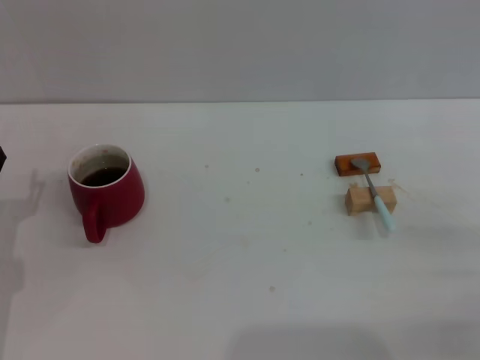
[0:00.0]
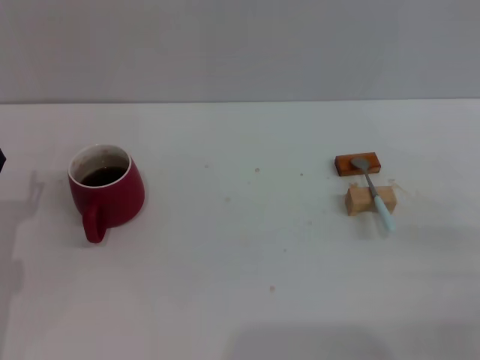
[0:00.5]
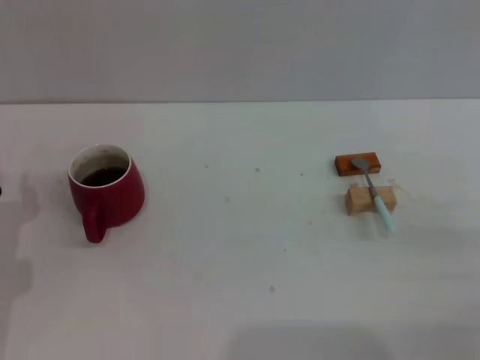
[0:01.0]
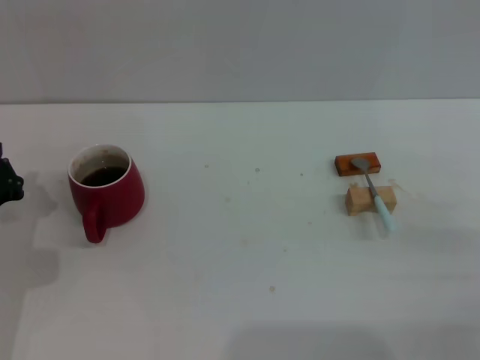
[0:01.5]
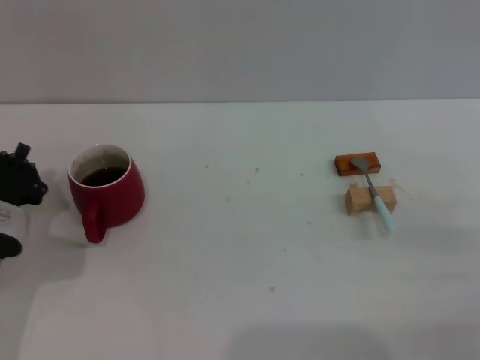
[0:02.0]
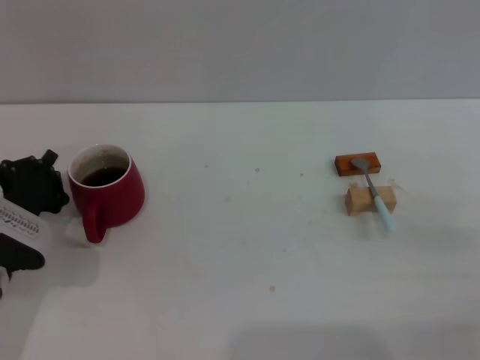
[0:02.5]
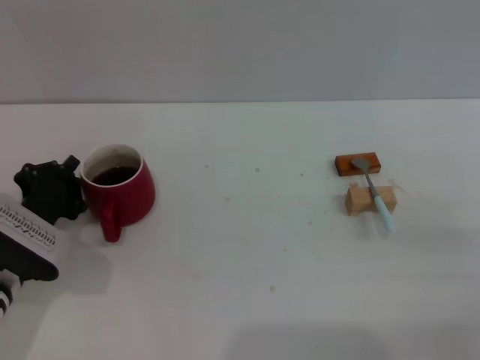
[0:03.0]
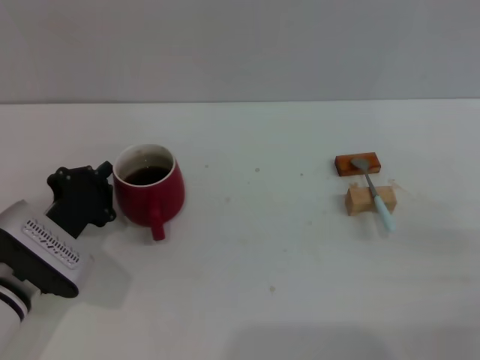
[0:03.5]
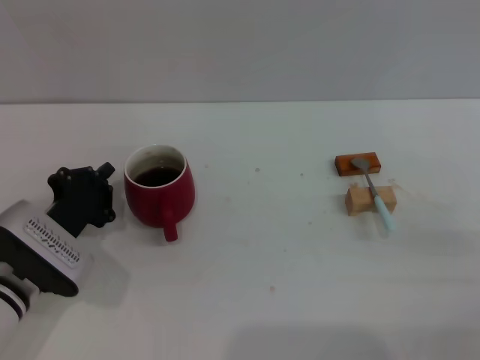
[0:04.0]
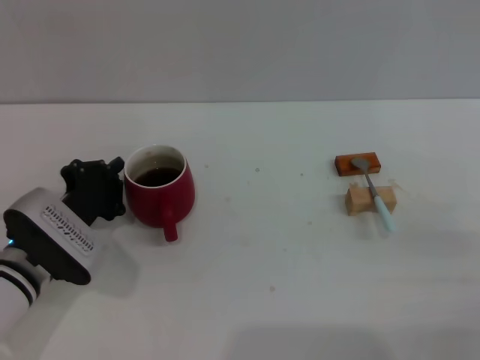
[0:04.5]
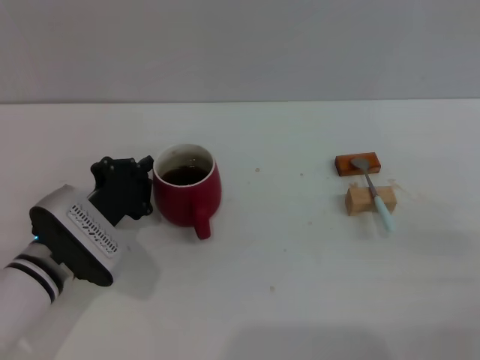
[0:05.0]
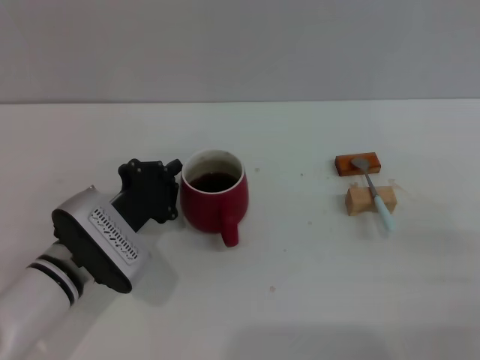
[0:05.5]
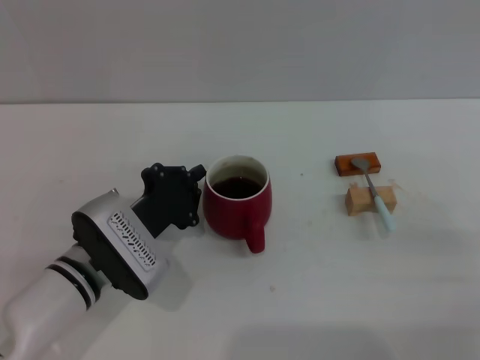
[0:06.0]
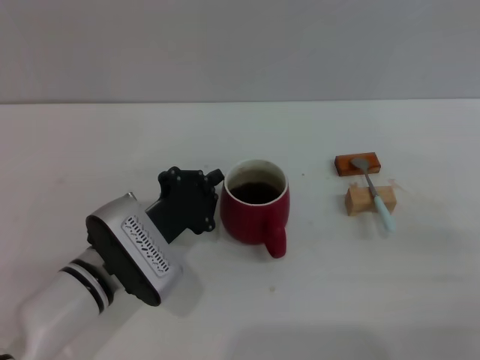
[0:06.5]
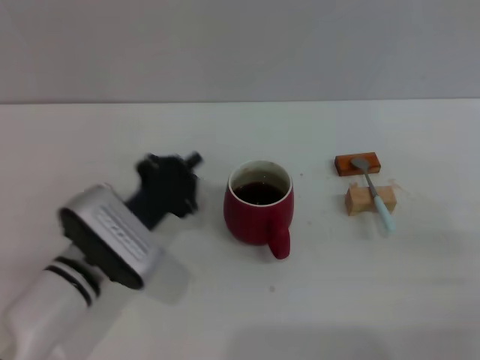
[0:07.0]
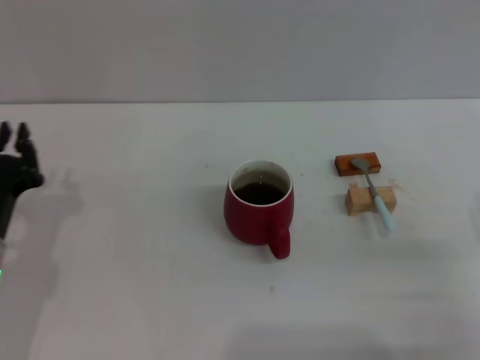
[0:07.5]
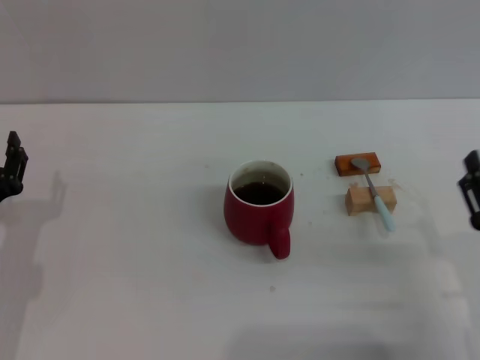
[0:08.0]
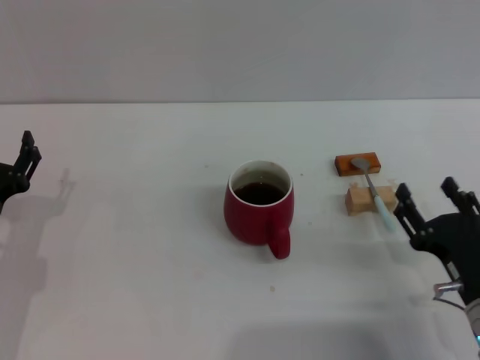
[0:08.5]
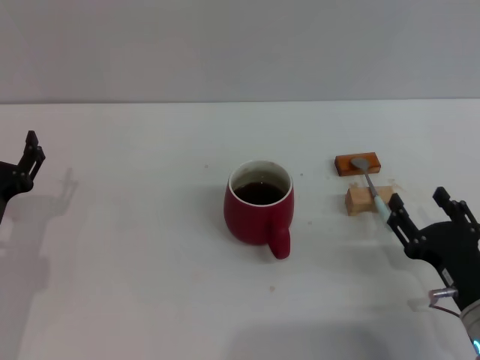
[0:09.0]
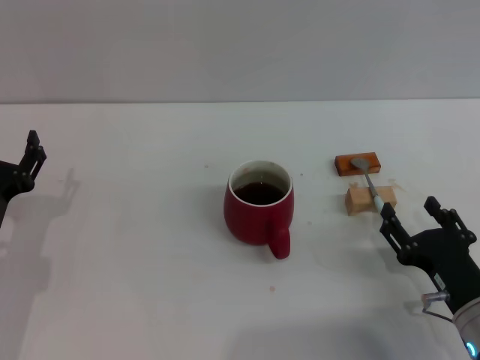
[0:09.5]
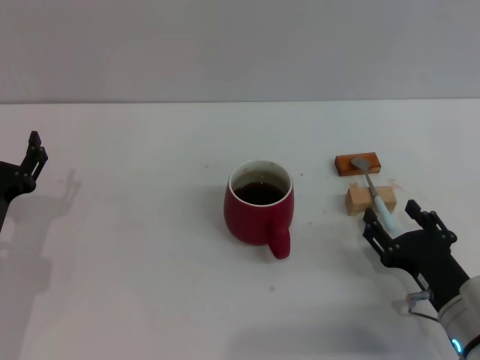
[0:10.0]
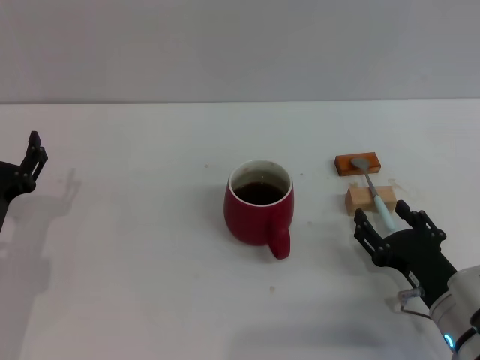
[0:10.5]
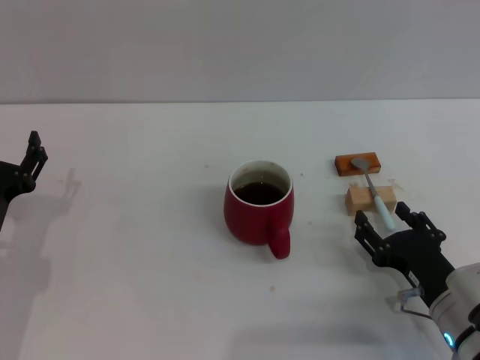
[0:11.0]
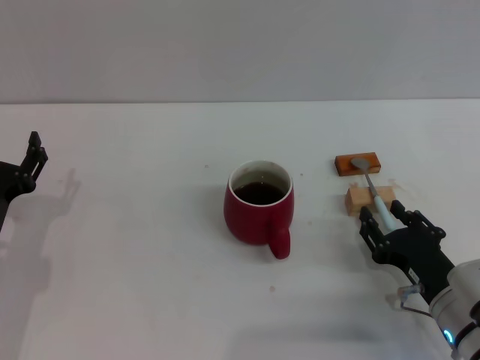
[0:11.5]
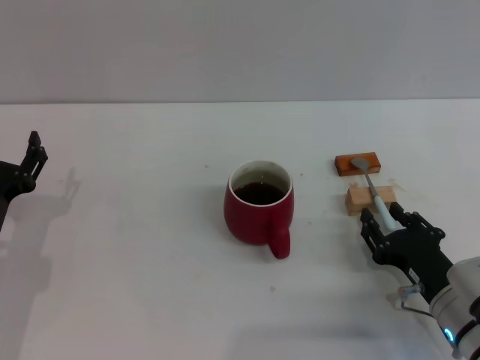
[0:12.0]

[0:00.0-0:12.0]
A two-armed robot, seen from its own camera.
Task of the whole recording: Move the red cup to the center, lift the blue spoon, stir it three times in the cup, and put the spoon into the cup.
Step, 0:00.0 to 0:07.0: Move the cup with coffee to the center of view with the left gripper.
0:00.0 to 0:02.0: The left gripper closes its fingers.
0:04.0 to 0:06.0: The left gripper goes roughly 5 cm to the right.
0:06.0 to 0:08.0: The right gripper is displaced to the left by some 5 cm. The left gripper is displaced to the left by approximately 10 cm, and opens its fingers.
0:08.0 to 0:10.0: The right gripper ends up about 5 cm from where it was. The left gripper opens its fingers.
0:10.0 to 0:12.0: The grippers stay close to where they were, moving slightly.

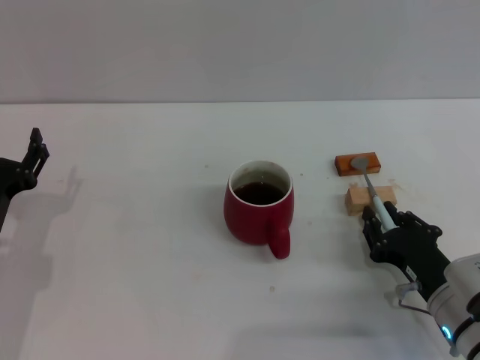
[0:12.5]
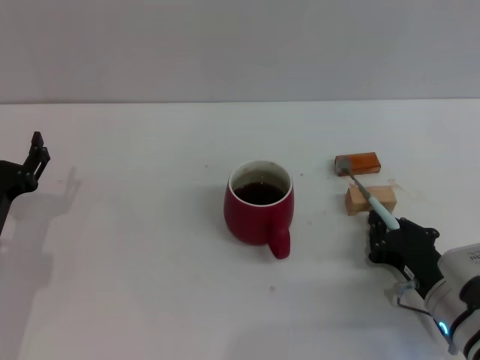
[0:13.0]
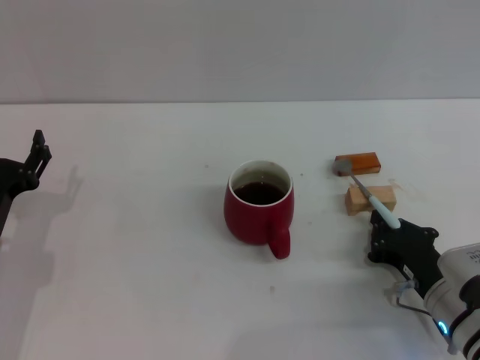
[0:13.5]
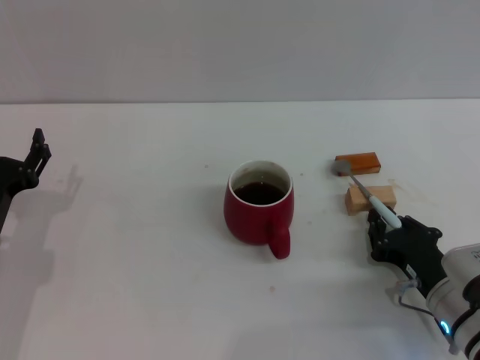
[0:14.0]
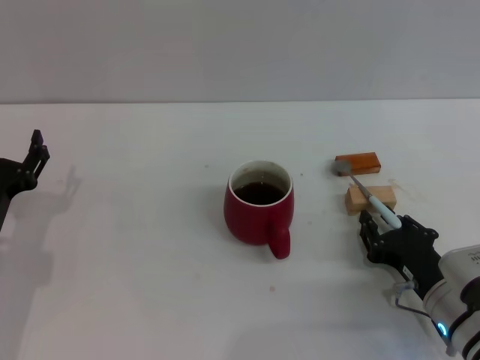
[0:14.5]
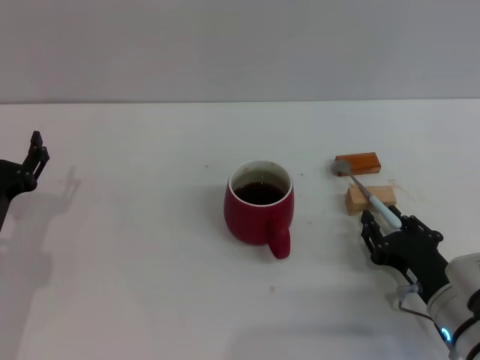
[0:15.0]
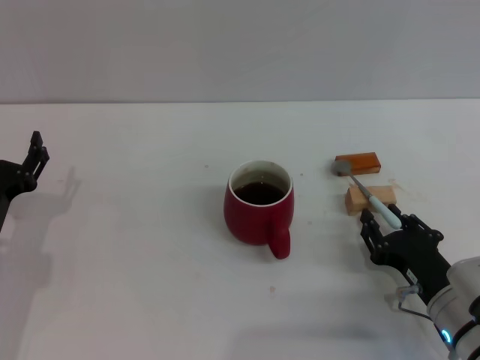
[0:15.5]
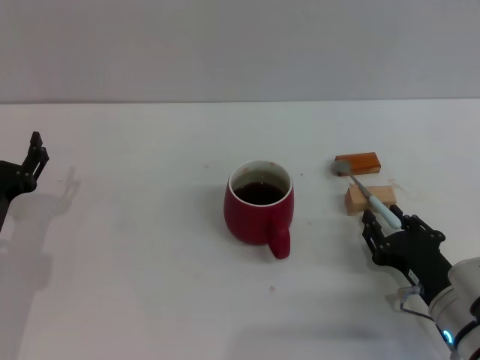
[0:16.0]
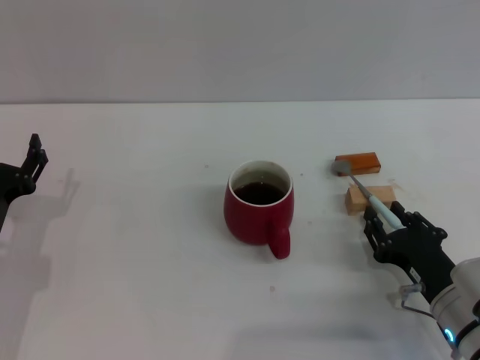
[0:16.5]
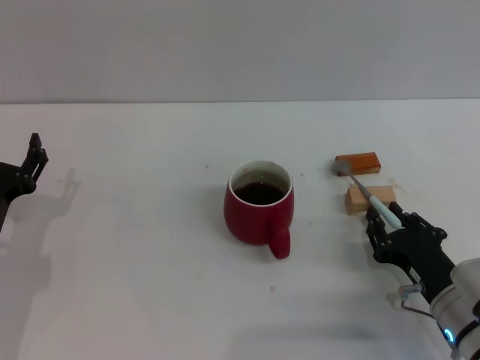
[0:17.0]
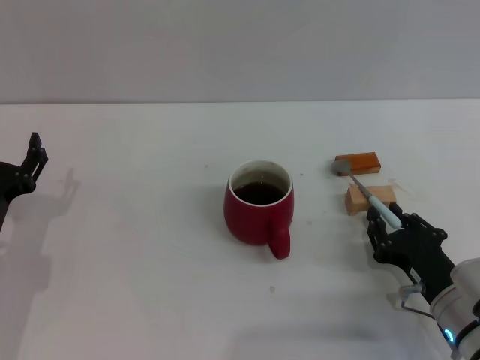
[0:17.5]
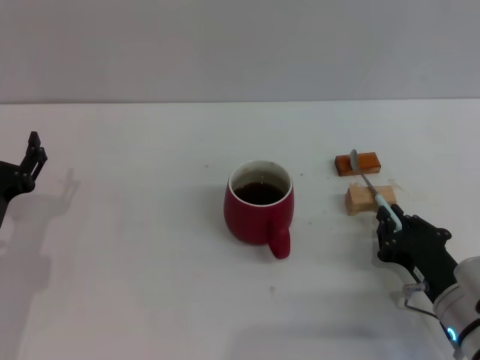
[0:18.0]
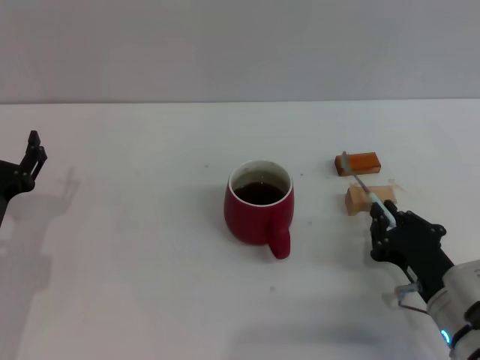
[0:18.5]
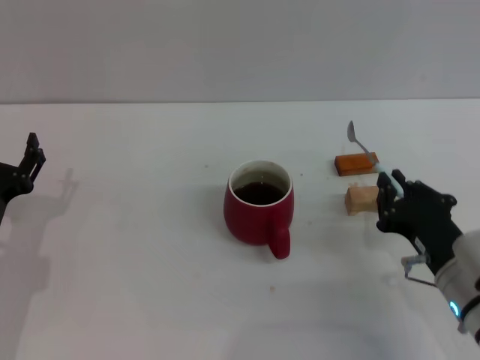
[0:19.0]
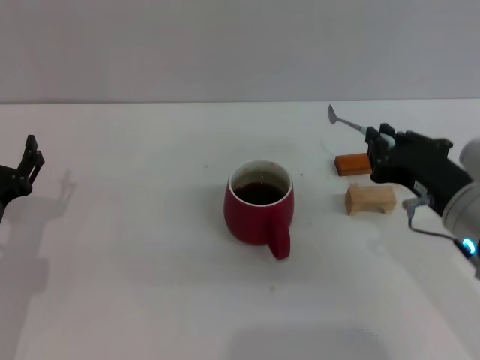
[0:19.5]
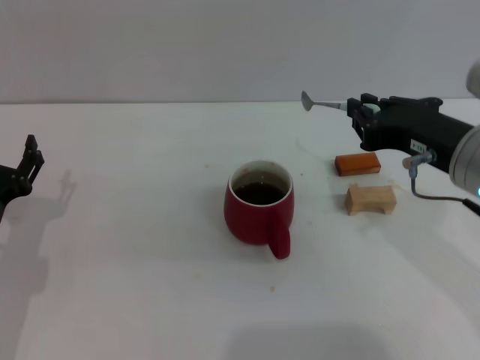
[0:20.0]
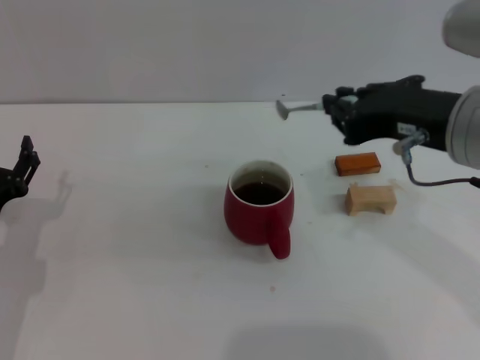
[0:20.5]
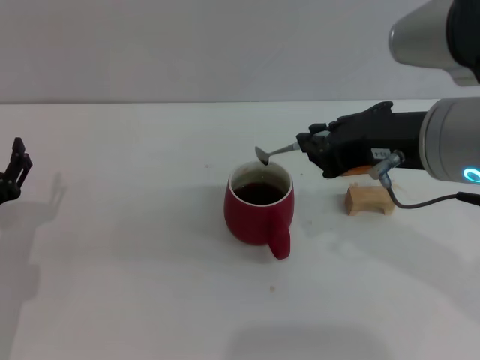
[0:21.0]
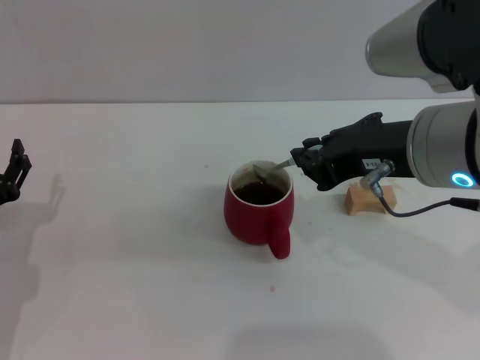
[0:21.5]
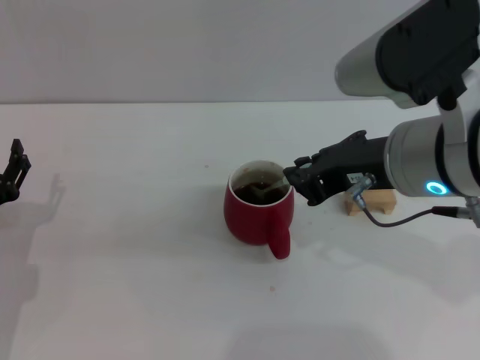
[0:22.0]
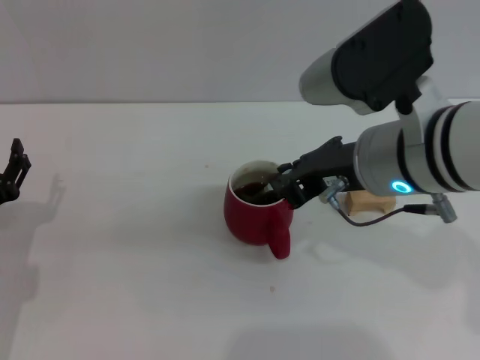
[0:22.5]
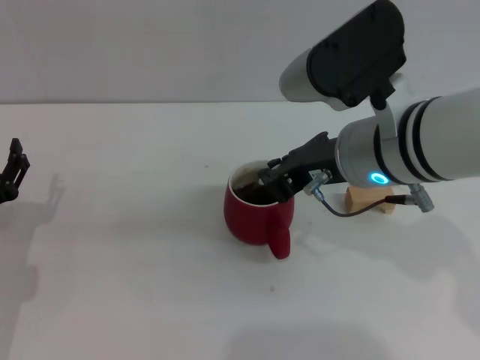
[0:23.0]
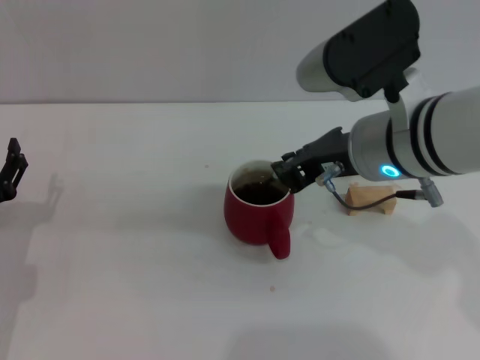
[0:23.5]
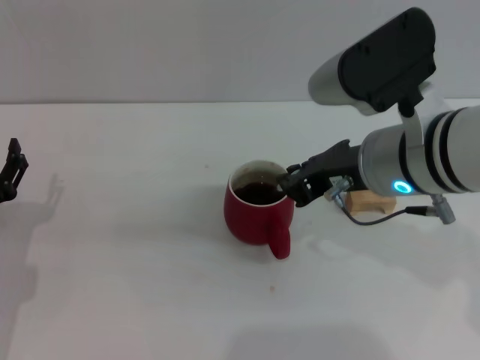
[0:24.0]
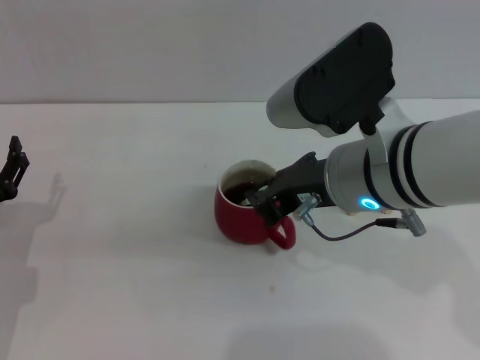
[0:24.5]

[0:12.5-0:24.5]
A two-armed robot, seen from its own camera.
Task of the whole recording: Move the red cup to the center, lift the blue spoon, stir it three times in the cup, and put the spoon into the cup.
Step, 0:12.5 to 0:18.5: Pick up the spoon with the right gripper.
0:12.5 to 0:14.5: The right gripper closes, then reopens.
0:14.5 to 0:16.5: Neither gripper changes place.
0:16.5 to 0:18.5: The right gripper closes its fingers.
0:18.5 to 0:20.5: The right gripper goes roughly 25 cm upward.
0:20.5 to 0:22.5: The right gripper changes place by approximately 5 cm.
0:22.5 to 0:24.5: The grippers move only a little.

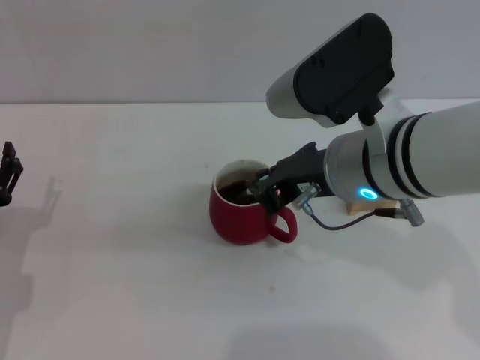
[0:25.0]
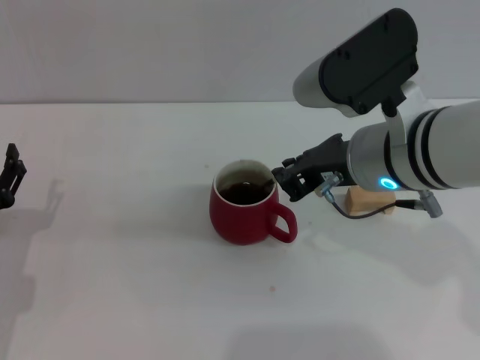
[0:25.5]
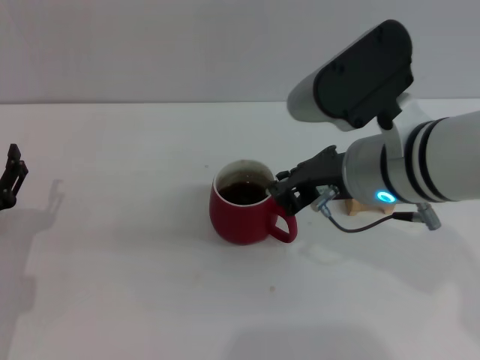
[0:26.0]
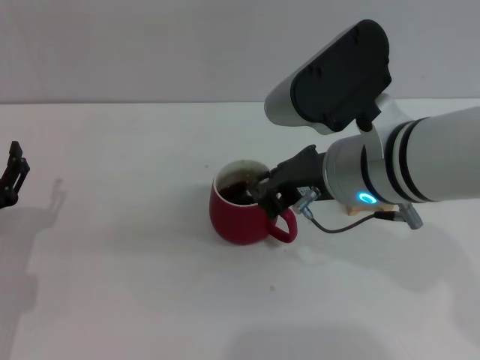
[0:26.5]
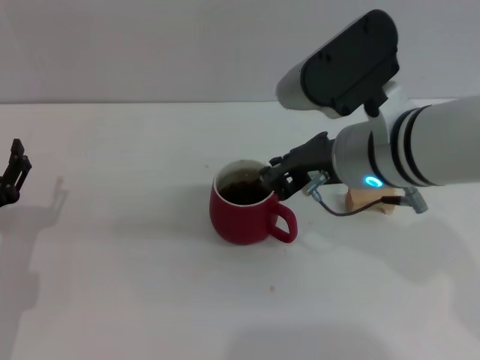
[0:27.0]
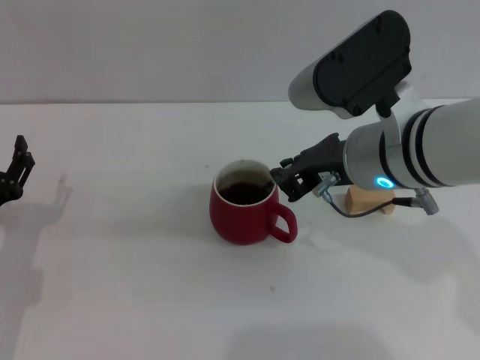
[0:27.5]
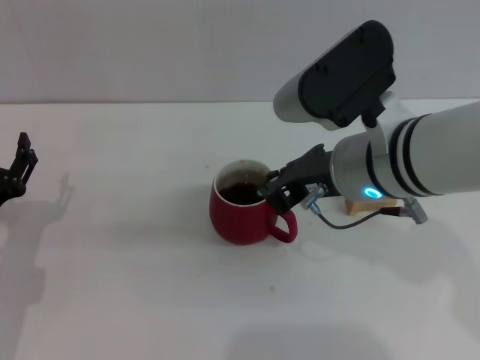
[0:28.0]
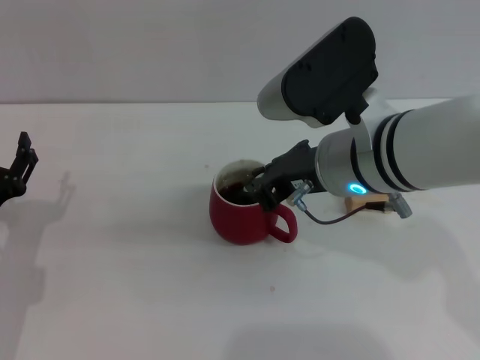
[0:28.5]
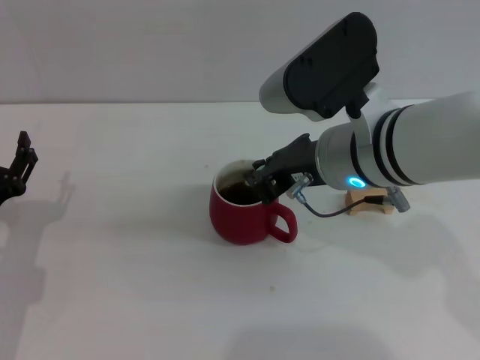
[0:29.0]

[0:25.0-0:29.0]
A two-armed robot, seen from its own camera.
Task of the whole recording: Move the red cup to the center, lift the blue spoon, stir it three times in the cup, and put the spoon into the cup.
0:25.0 to 0:27.0: The grippers stay close to where they were, moving slightly.
0:27.0 to 0:29.0: The two grippers keep their place.
